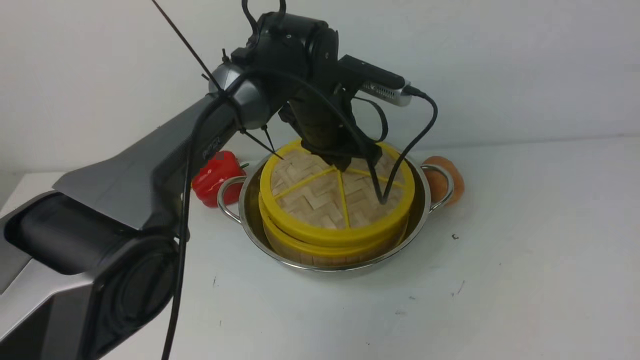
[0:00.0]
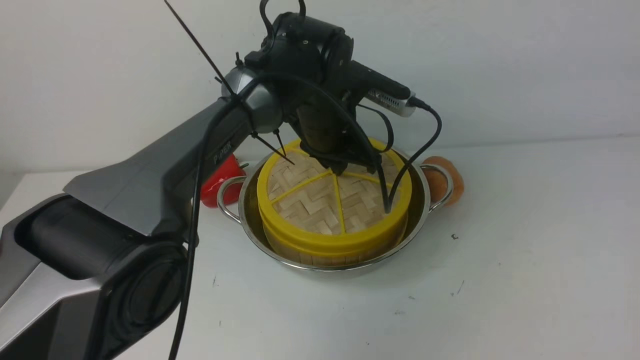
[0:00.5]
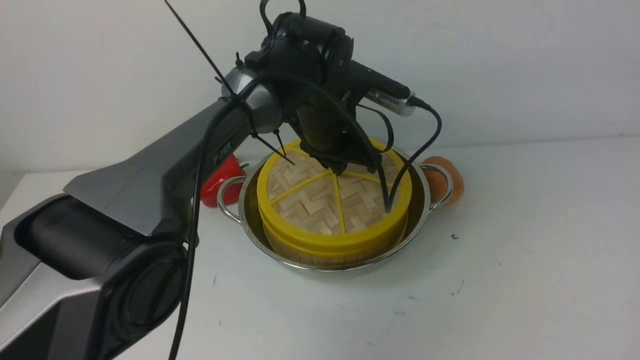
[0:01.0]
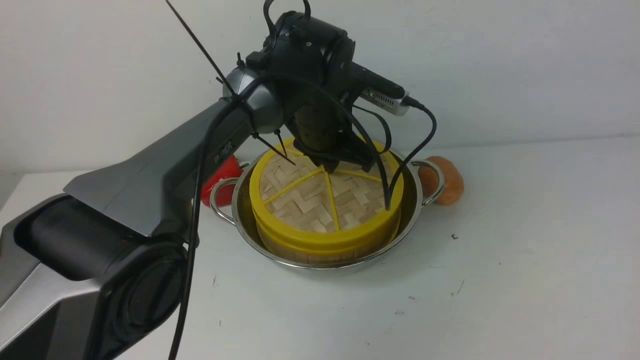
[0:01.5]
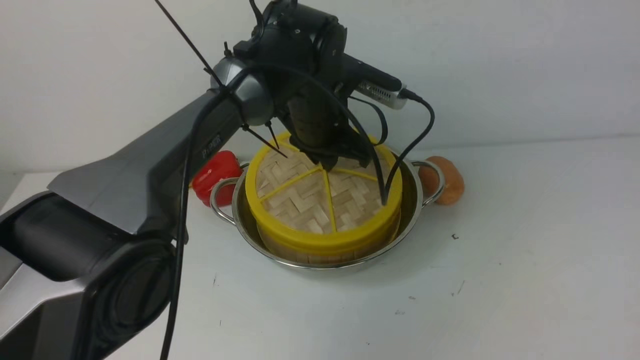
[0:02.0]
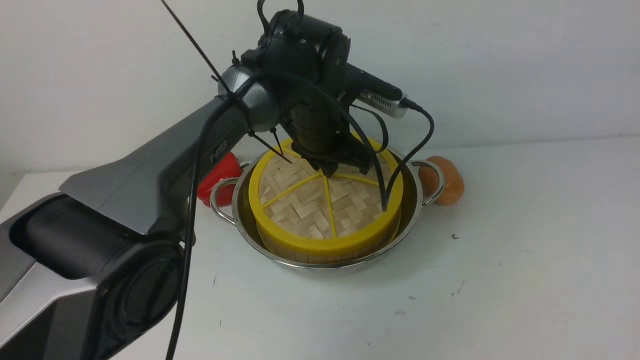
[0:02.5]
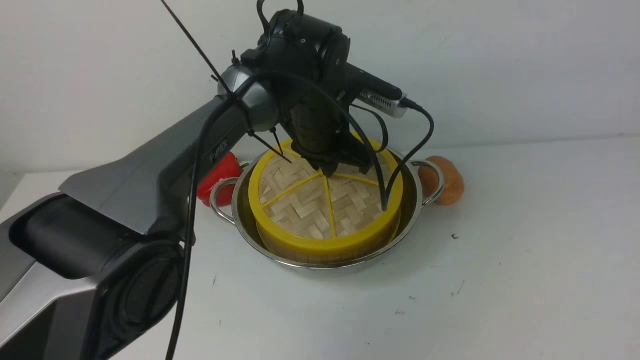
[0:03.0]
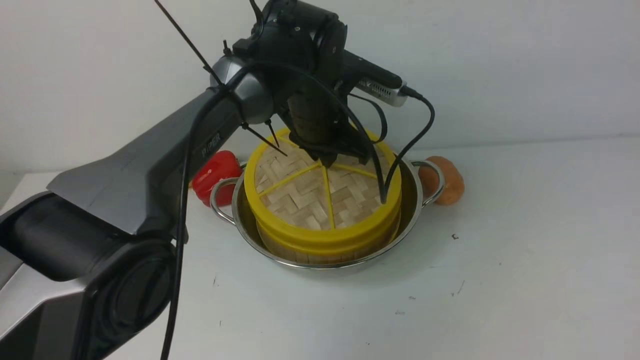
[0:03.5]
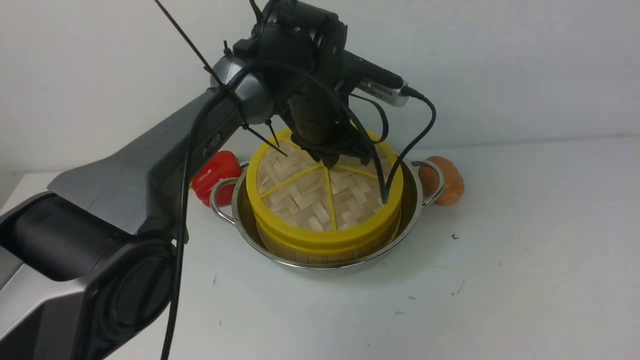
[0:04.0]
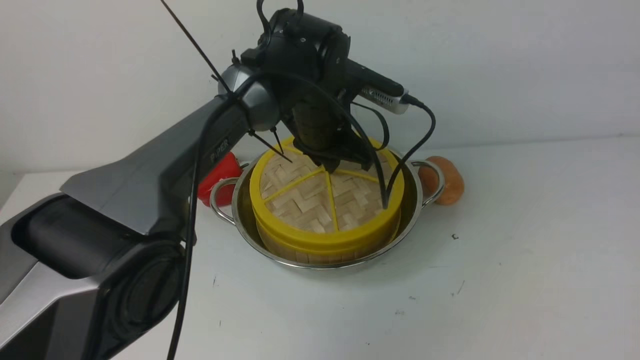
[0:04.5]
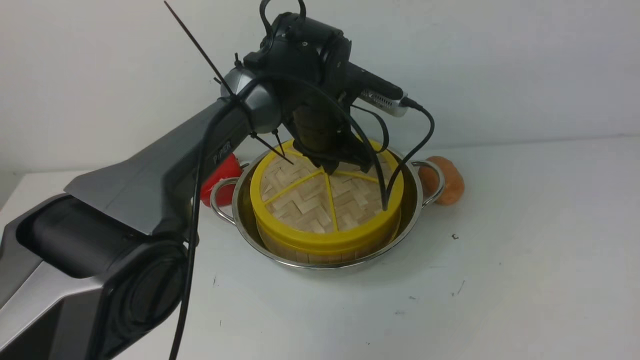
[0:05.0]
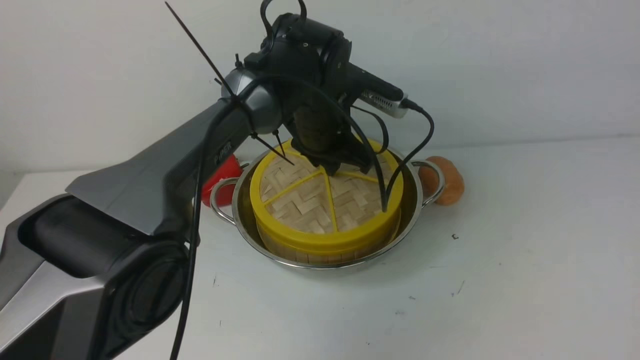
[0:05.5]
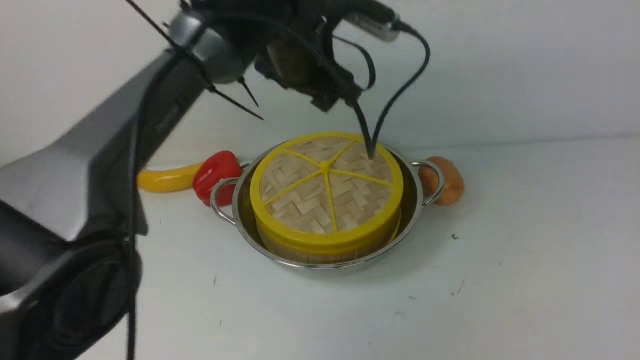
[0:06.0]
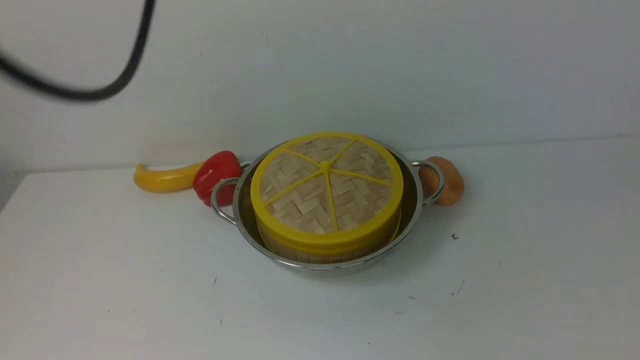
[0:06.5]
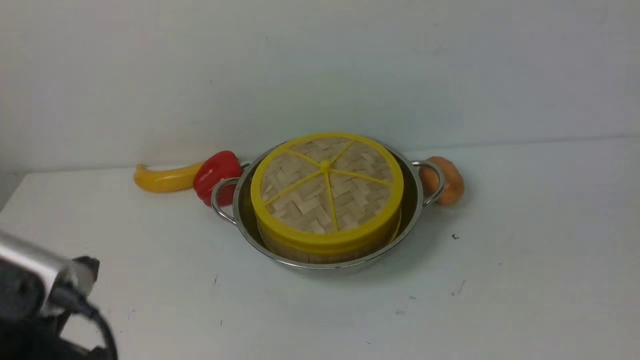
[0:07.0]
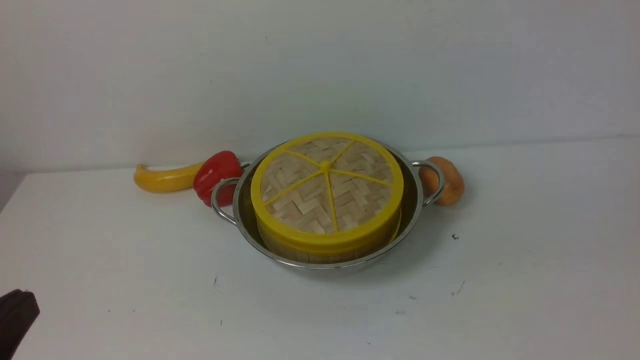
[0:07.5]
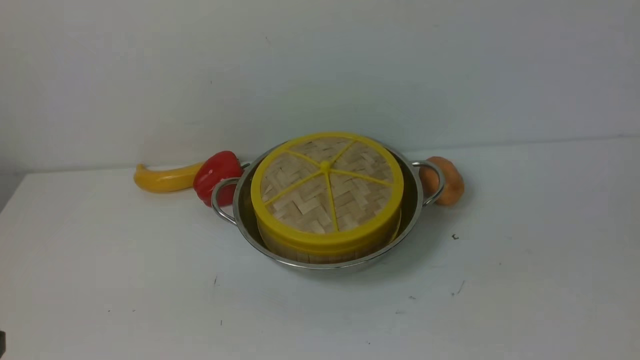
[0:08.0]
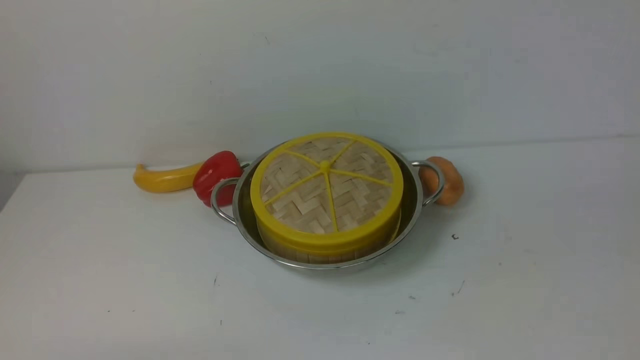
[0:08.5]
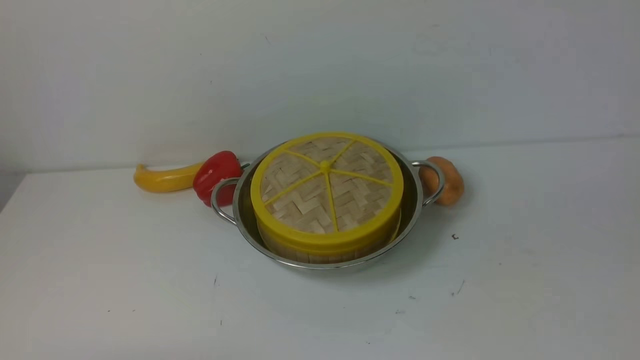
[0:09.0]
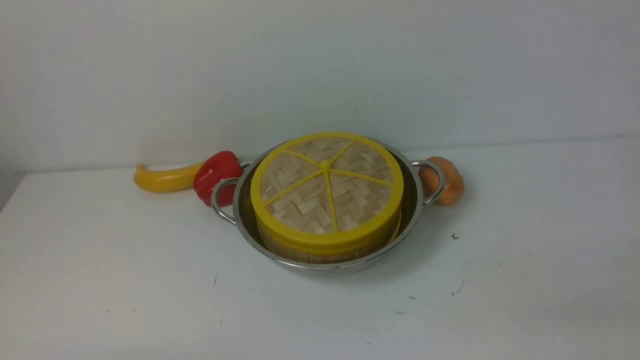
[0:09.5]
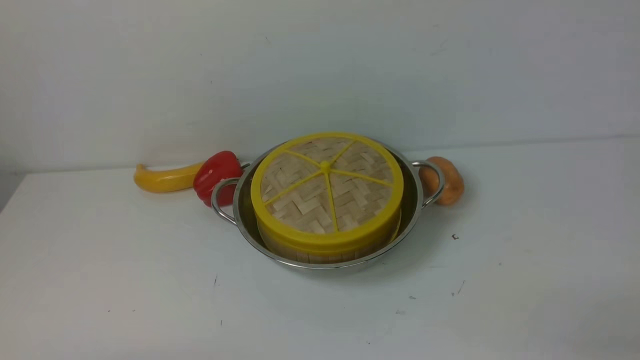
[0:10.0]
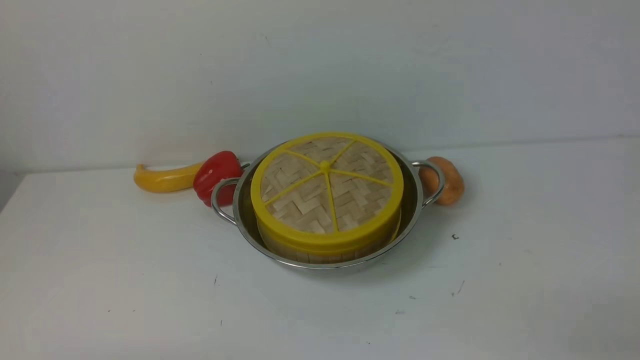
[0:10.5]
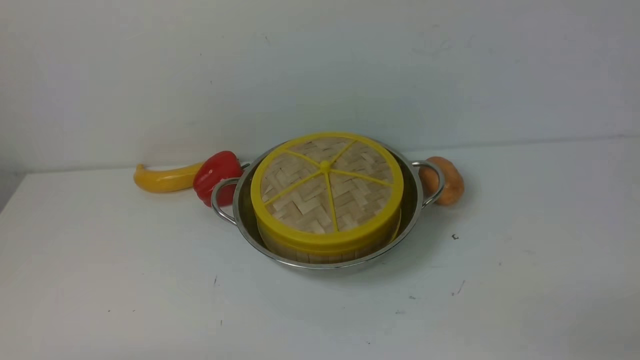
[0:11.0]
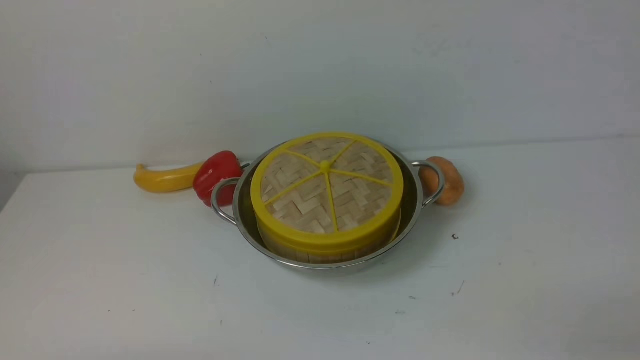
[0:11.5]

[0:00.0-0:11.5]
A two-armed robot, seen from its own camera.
Task of the whole recording: place the steamer in the pot on the white table, and put the lid on the steamer.
Step, 0:00.0 to 0:06.0: use the left arm to place the steamer lid on the steamer.
0:00.0 to 0:02.0: The grippers stay close to where they were, moving slightly.
0:02.0 to 0:04.0: The two grippers keep their place.
0:04.0 to 0:06.0: The left gripper goes roughly 10 cm upward, and opens its fingers.
0:06.0 to 0:07.5: The left gripper goes roughly 40 cm backward and to the left, and closes its fingers, while the right gripper goes about 15 cm downward and backward, and closes its fingers.
0:07.5 to 0:09.5: The left gripper moves downward, some 15 cm.
